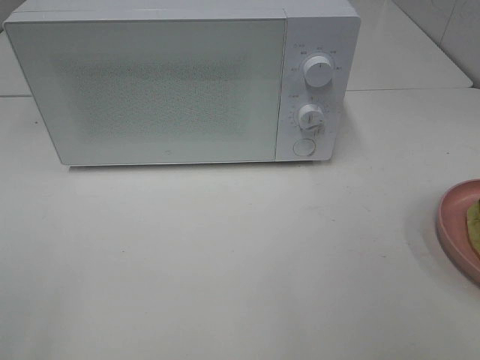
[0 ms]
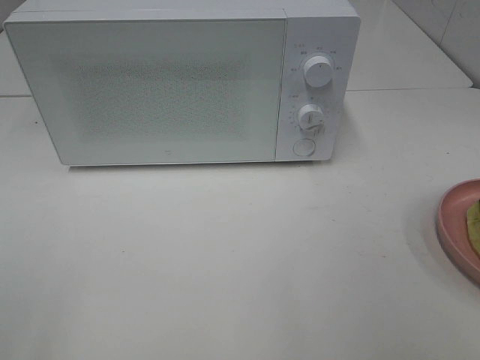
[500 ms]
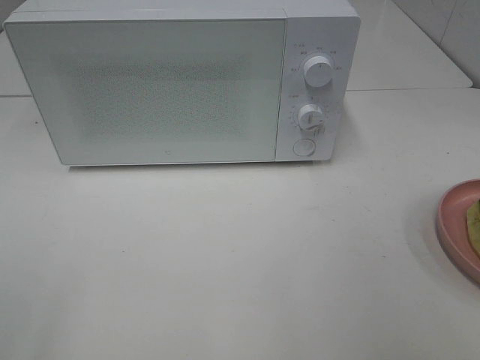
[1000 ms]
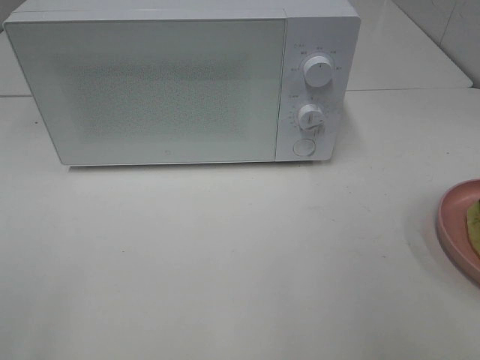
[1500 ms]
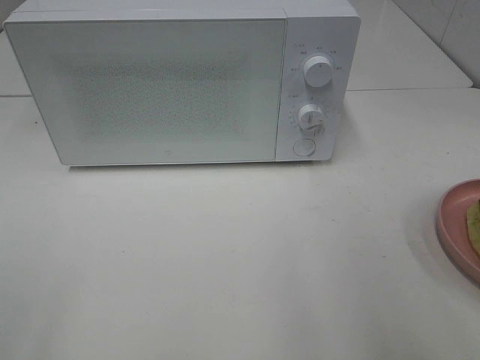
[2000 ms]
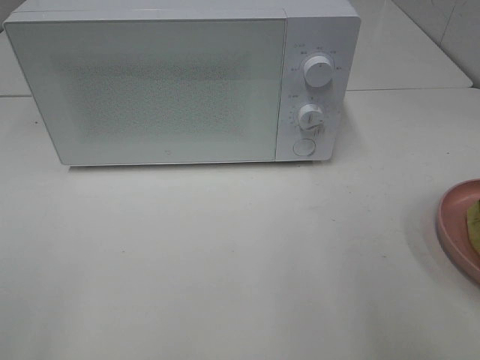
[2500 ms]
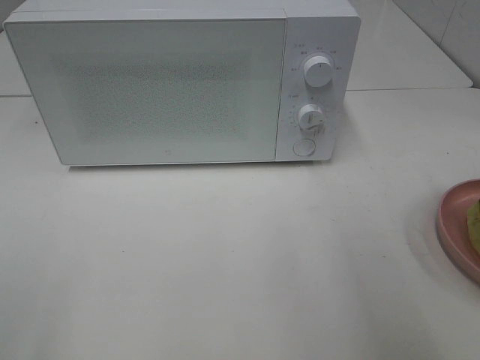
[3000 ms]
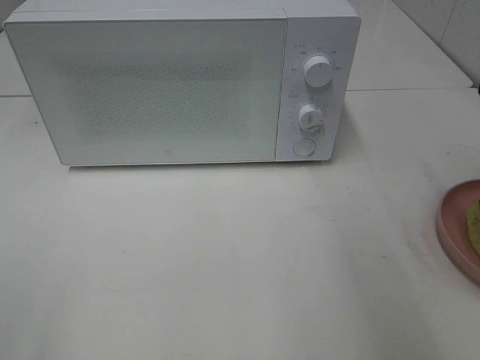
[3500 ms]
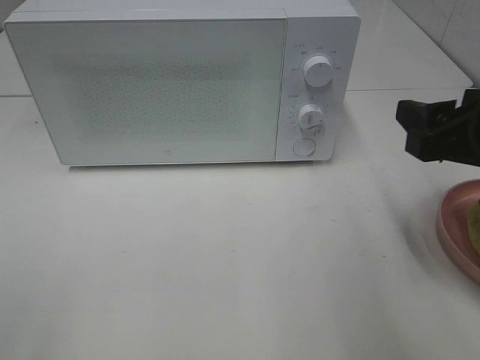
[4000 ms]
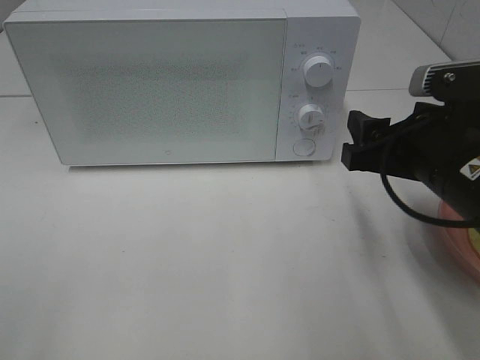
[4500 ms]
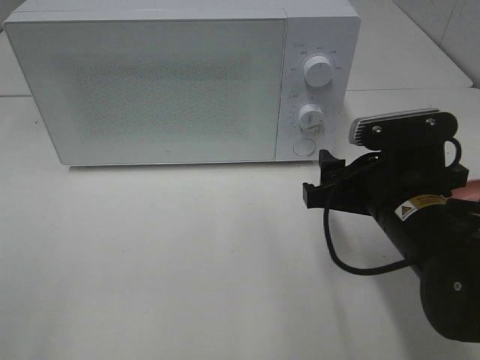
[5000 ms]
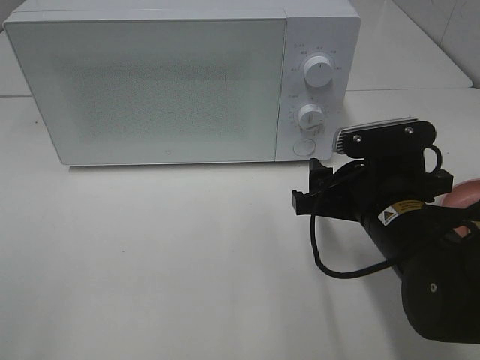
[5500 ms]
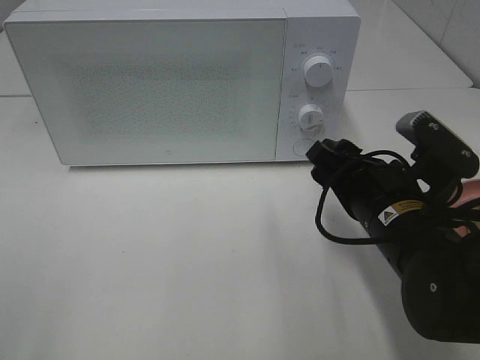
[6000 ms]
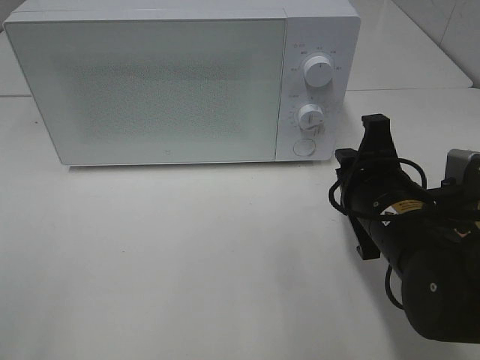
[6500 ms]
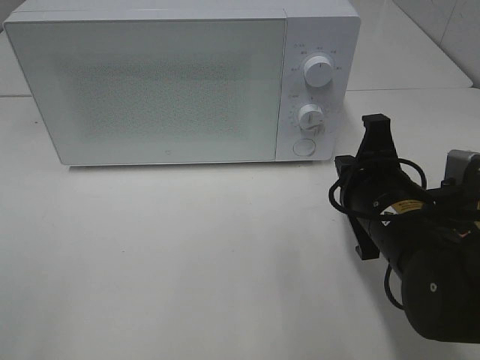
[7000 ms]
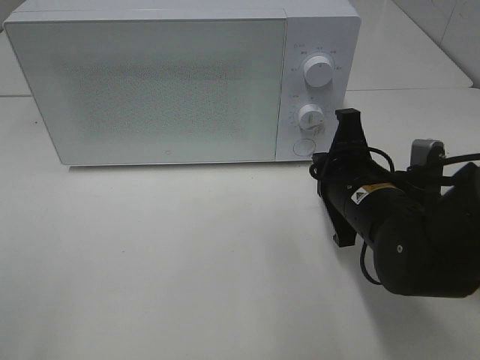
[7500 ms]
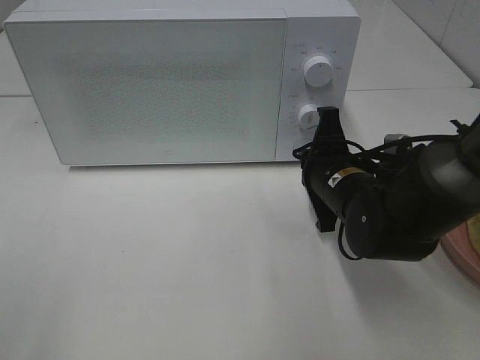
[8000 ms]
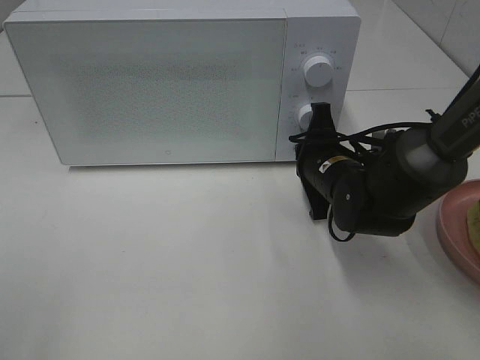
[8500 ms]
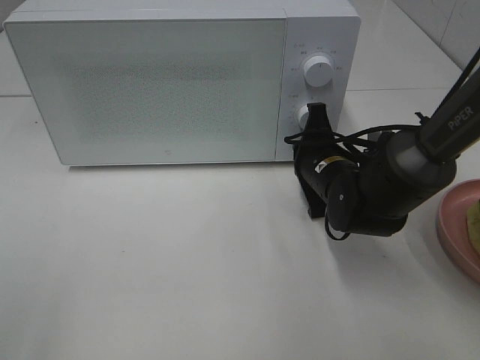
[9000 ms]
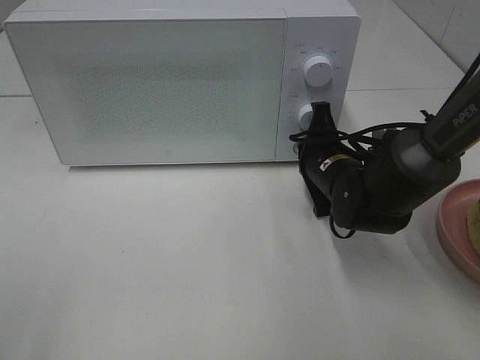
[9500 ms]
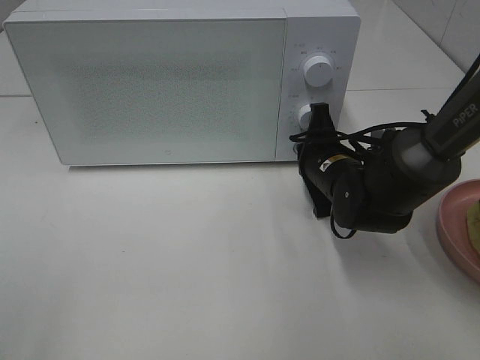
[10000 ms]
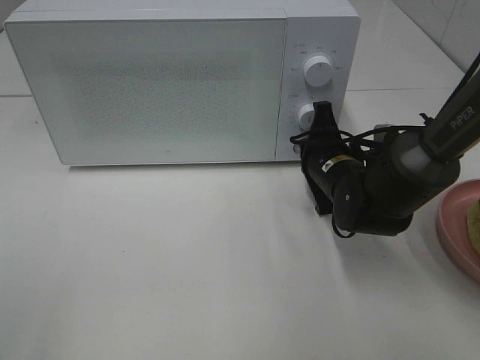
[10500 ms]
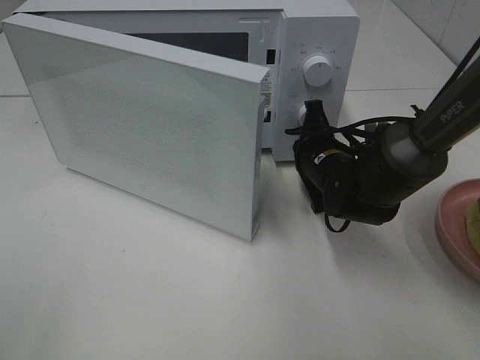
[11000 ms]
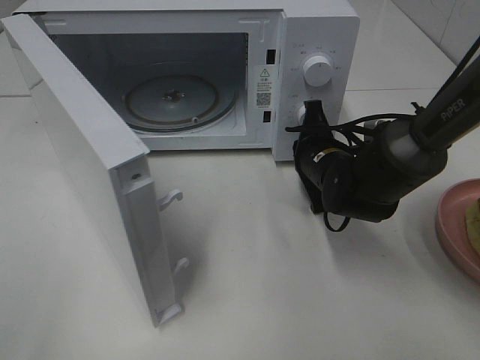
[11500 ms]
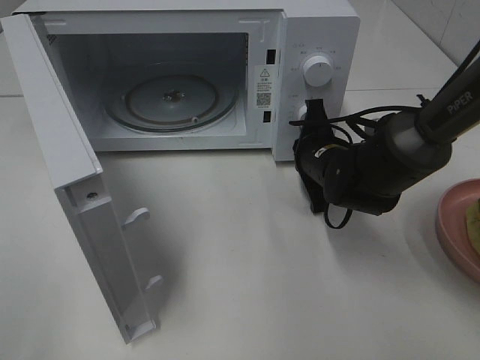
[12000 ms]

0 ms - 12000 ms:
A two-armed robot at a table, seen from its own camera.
Task of the whole recording: Heat Sandwich.
2000 ms - 4000 ms: The right gripper heads forward, covering approximately 10 cm.
4000 ms - 6000 ms: The right gripper moves downward and to the left, roughly 10 cm.
6000 ms - 8000 ms: The right gripper travels forward by about 10 cm, and closes its fingers.
8000 ms - 10000 ms: There are only small adjustments of the grippers.

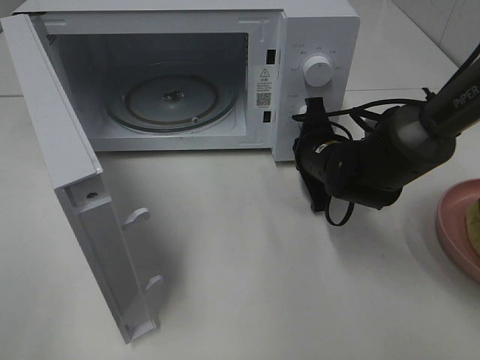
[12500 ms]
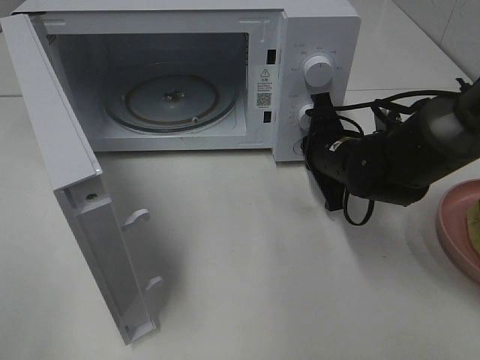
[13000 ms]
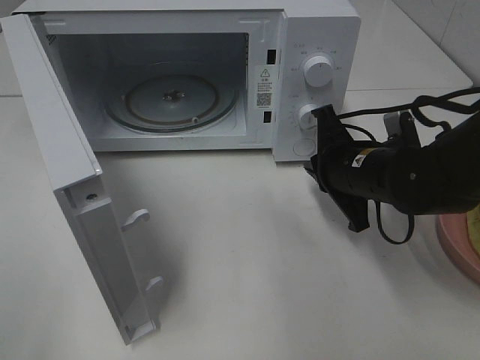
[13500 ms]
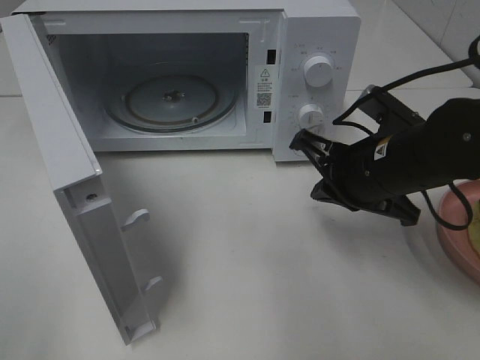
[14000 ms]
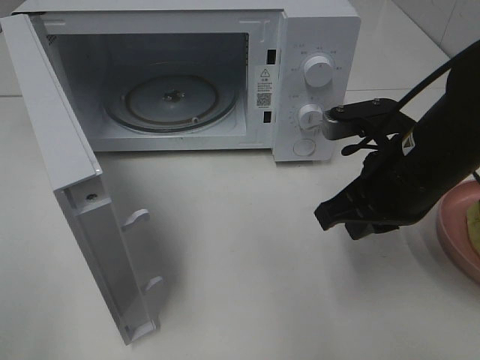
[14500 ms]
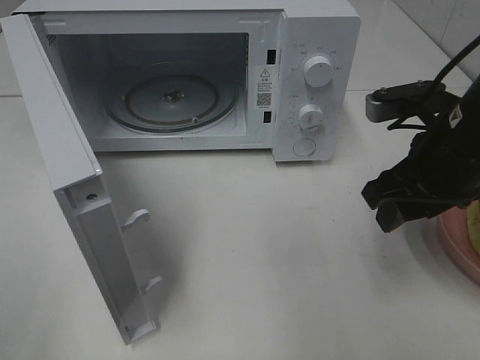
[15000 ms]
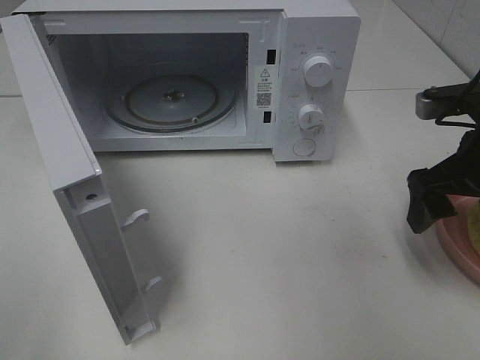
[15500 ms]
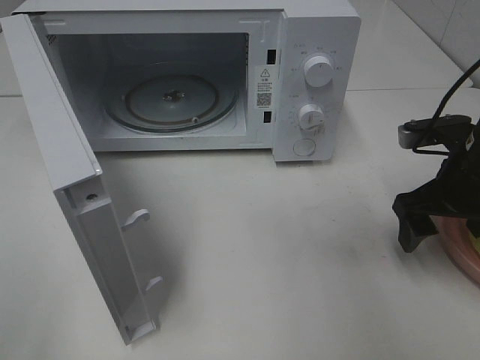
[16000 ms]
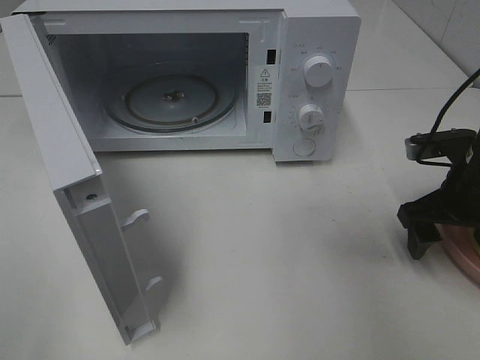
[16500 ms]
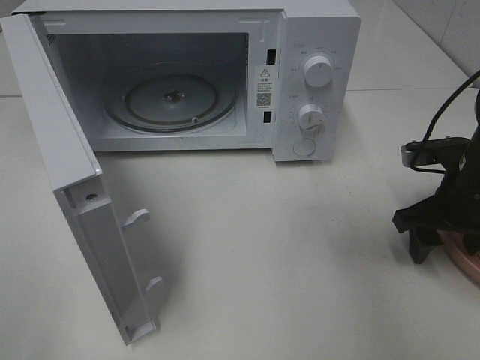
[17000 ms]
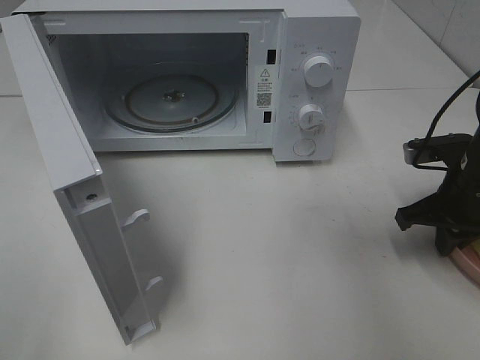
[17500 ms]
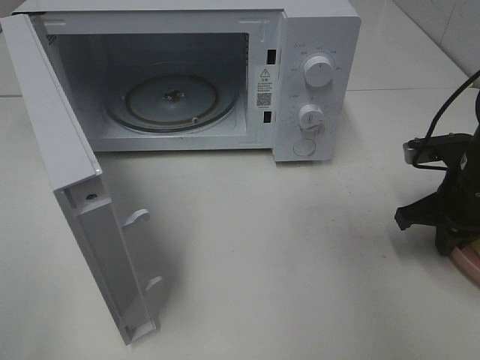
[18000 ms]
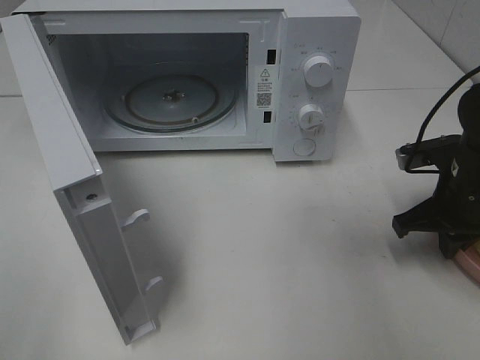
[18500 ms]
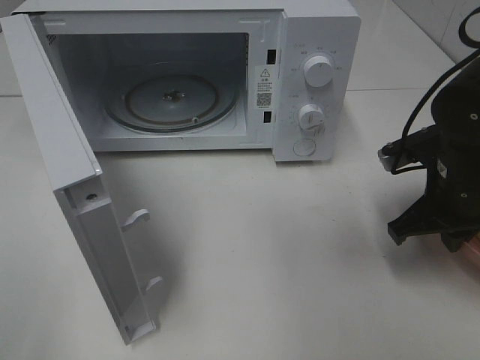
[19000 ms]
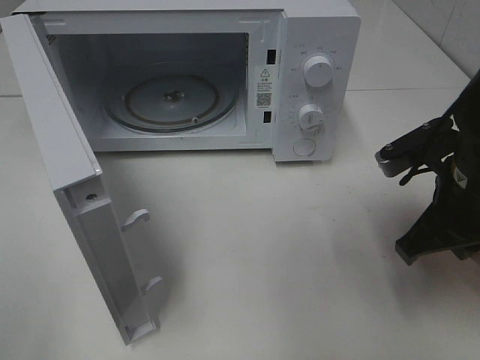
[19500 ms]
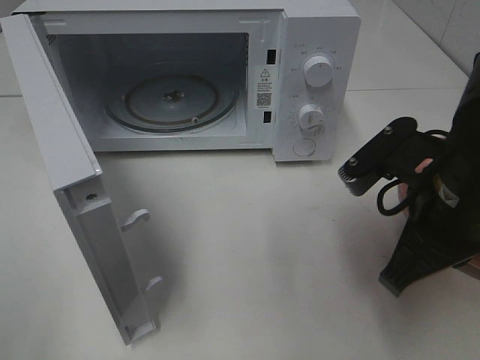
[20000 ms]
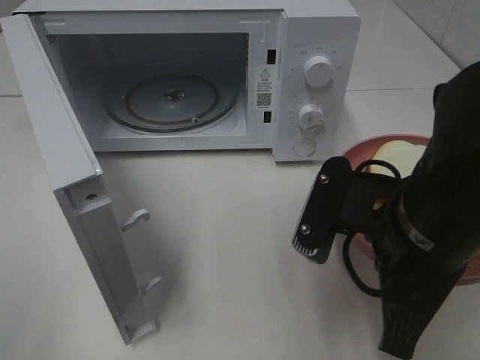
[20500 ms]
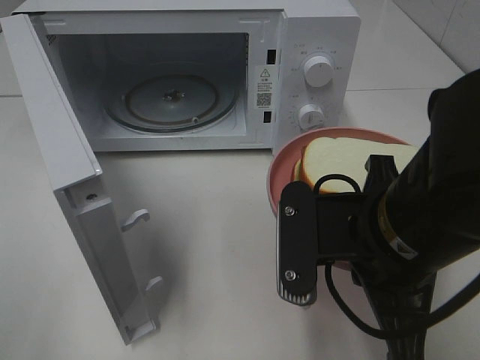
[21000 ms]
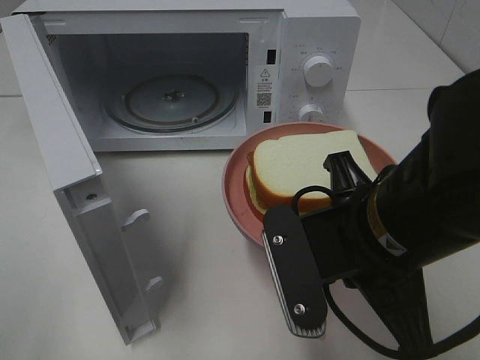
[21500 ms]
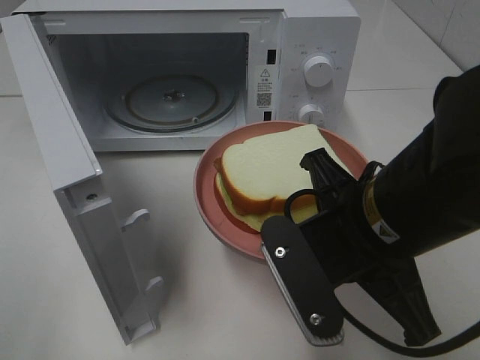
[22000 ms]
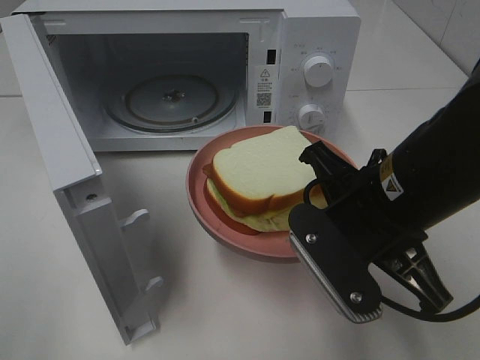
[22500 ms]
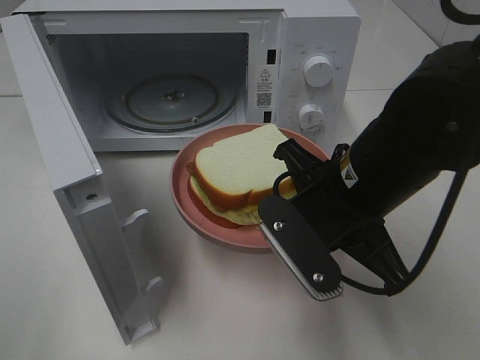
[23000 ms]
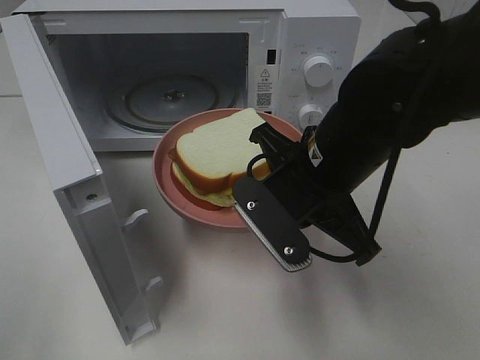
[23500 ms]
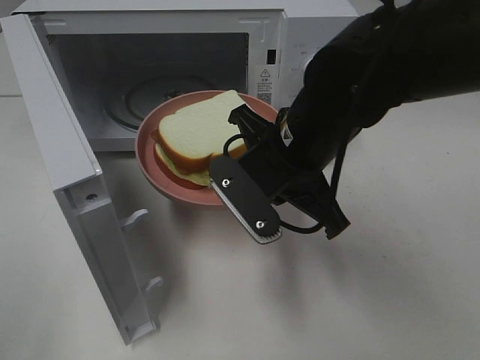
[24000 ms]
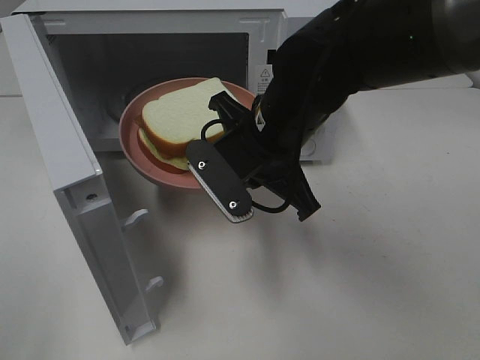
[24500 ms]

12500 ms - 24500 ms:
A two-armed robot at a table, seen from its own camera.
Task of the whole recording: Heat Sandwich.
Step, 13500 ms - 18000 ms: Right hand: grab the plate with the sandwich.
12500 ms - 14500 ms: The right gripper goes about 15 cm backward and upward.
14500 ms - 16500 ms: The right gripper goes approximately 10 cm to the right and downward, and opens its fingers.
16500 ms - 18500 ms: The right gripper closes up.
18500 ms - 20500 ms: The right gripper heads to the left, backward and upward, covering roughly 20 cm.
22500 ms - 24500 ms: The right gripper is displaced forward and to the left by about 10 cm.

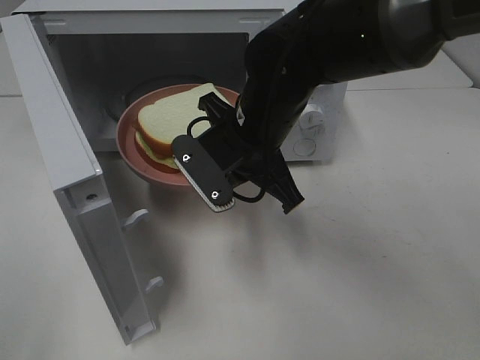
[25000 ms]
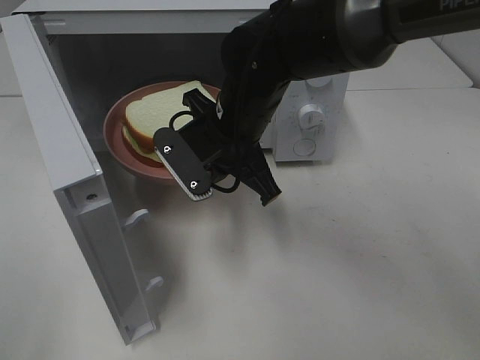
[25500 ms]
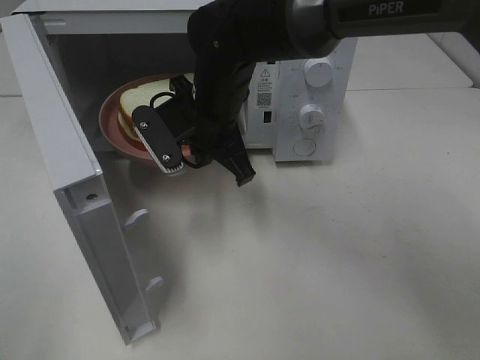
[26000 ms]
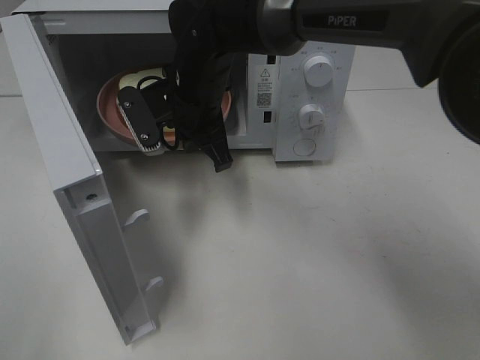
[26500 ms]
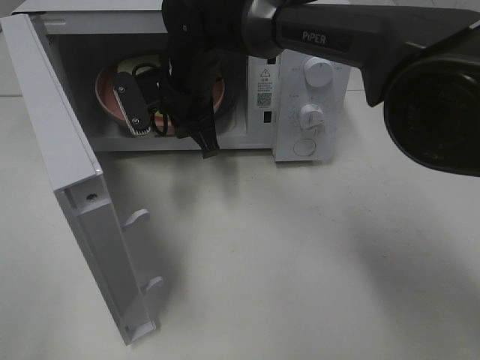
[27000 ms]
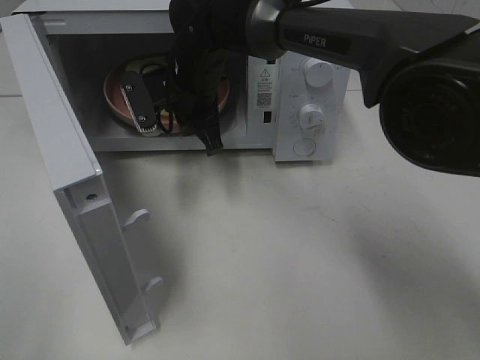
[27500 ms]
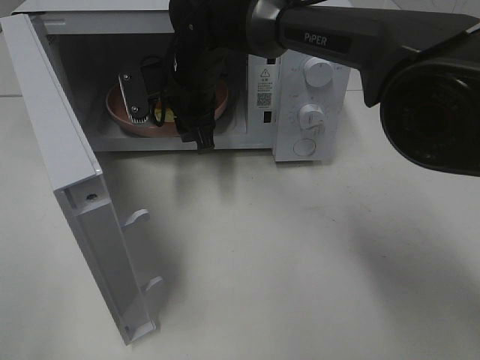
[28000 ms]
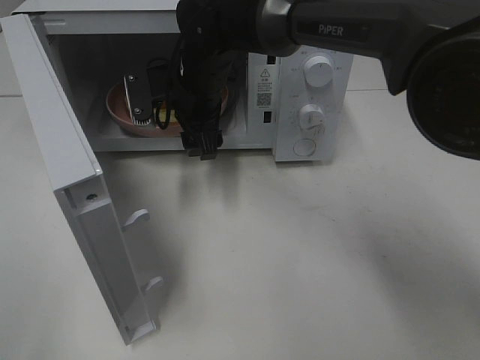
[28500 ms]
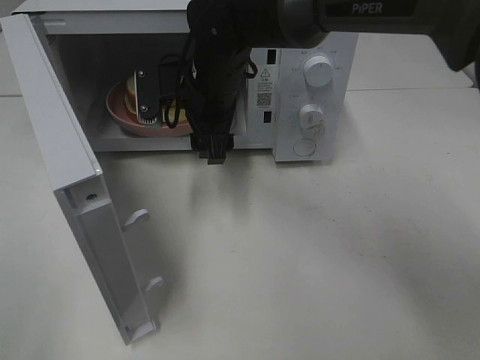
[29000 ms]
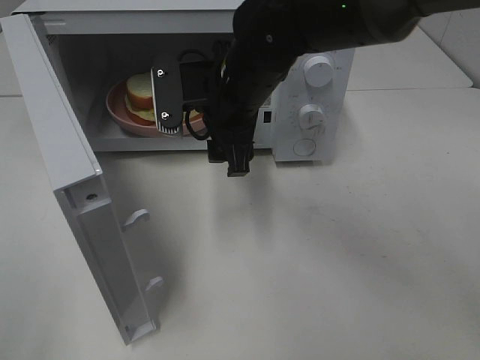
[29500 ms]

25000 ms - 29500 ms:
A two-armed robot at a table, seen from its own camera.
Task of the whole recording: Heat Sandwich.
Step, 25000 ms - 29500 ms: Right hand: place the plate in the microwave.
25000 ms - 27000 ms: The right gripper travels forward and to the left by some 15 cm.
27000 ms - 29500 ms: The right gripper shifts about 10 cm backward and to the right, and opens its fingers.
